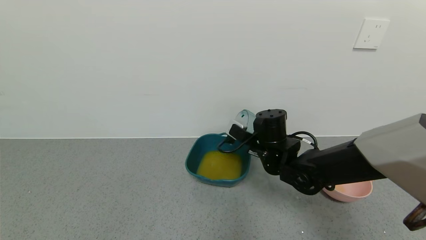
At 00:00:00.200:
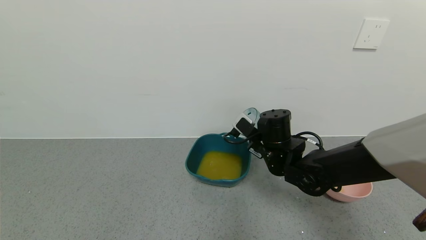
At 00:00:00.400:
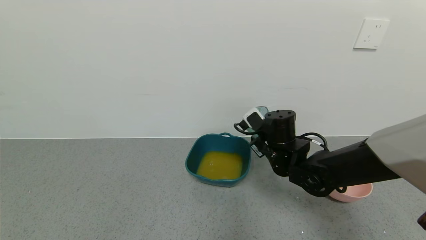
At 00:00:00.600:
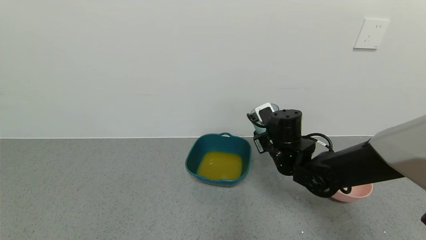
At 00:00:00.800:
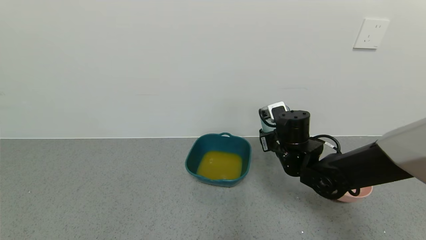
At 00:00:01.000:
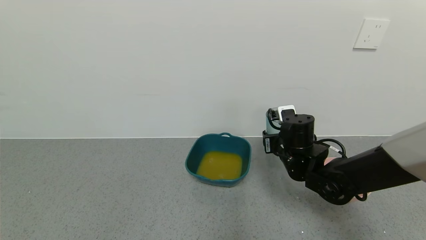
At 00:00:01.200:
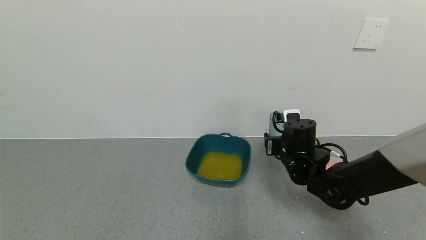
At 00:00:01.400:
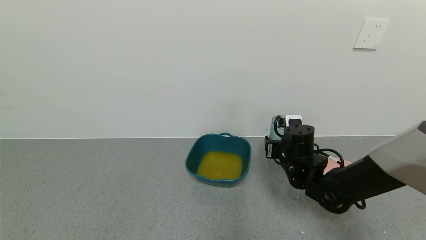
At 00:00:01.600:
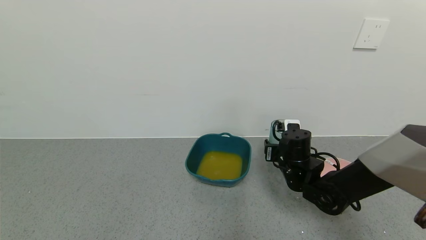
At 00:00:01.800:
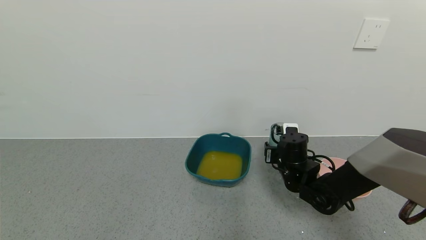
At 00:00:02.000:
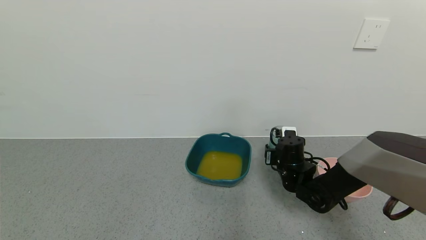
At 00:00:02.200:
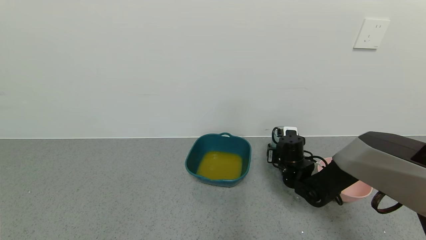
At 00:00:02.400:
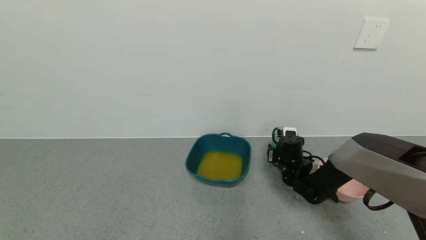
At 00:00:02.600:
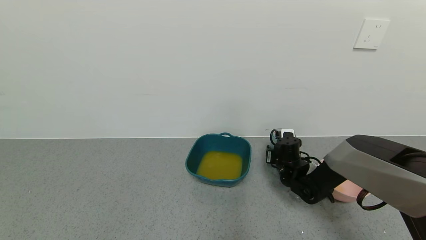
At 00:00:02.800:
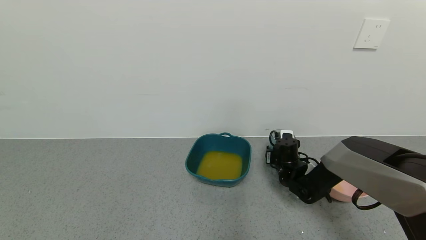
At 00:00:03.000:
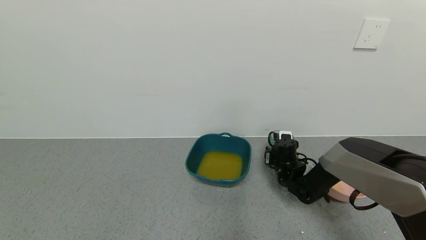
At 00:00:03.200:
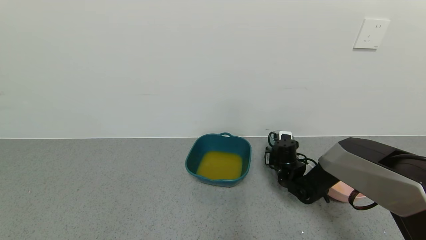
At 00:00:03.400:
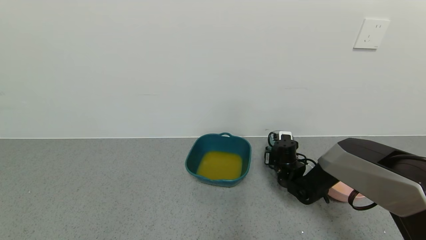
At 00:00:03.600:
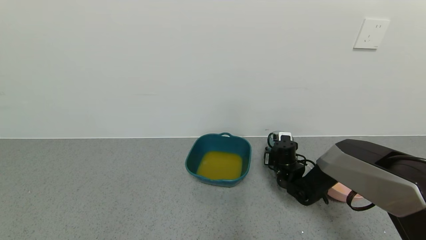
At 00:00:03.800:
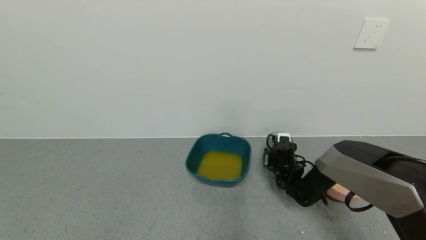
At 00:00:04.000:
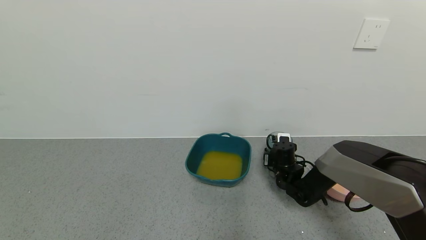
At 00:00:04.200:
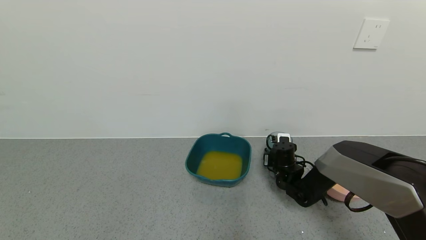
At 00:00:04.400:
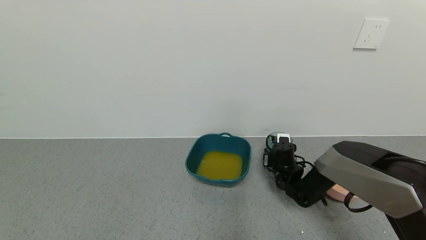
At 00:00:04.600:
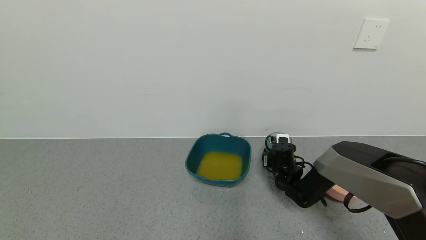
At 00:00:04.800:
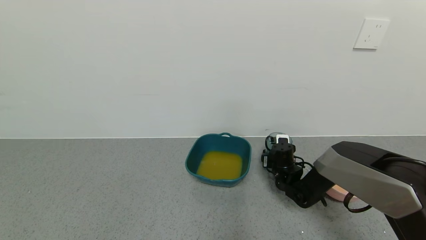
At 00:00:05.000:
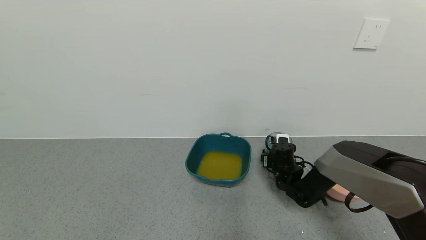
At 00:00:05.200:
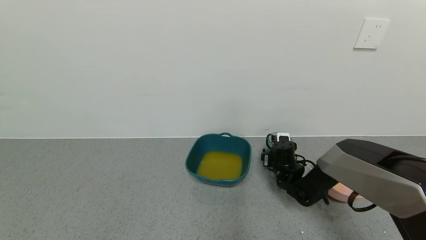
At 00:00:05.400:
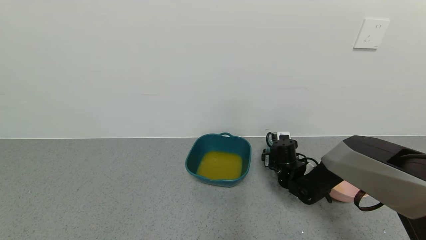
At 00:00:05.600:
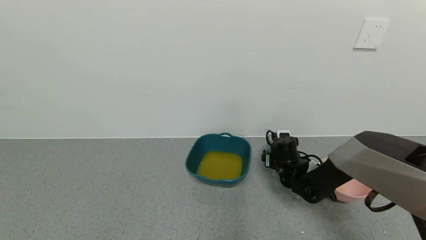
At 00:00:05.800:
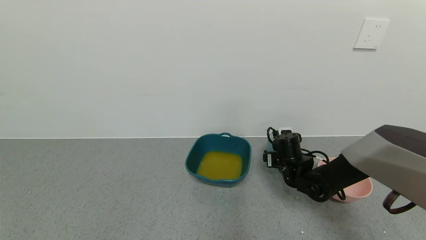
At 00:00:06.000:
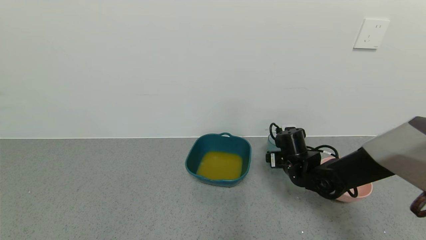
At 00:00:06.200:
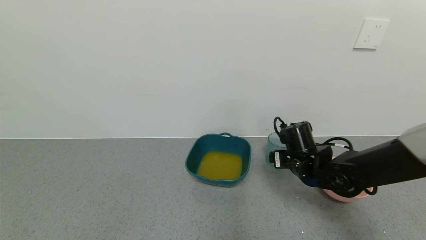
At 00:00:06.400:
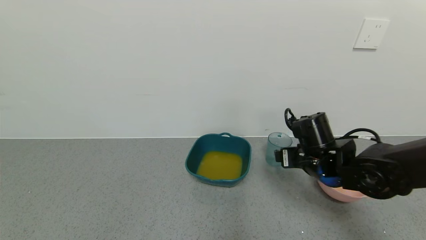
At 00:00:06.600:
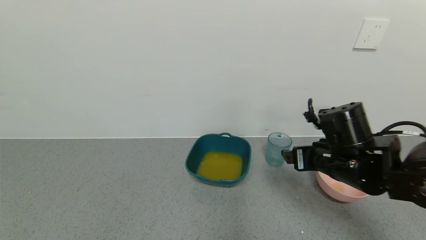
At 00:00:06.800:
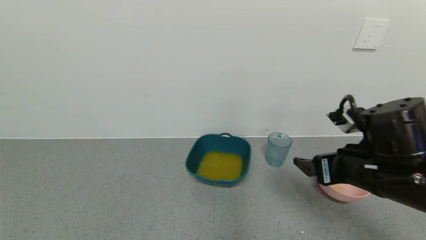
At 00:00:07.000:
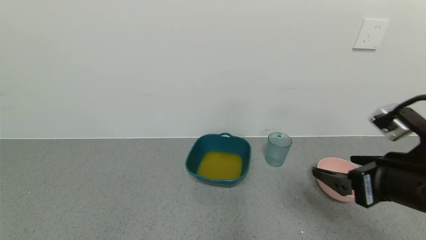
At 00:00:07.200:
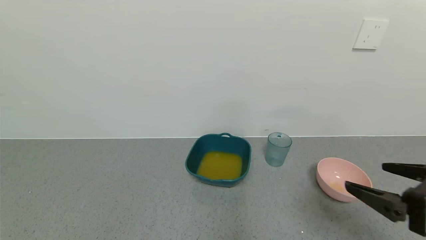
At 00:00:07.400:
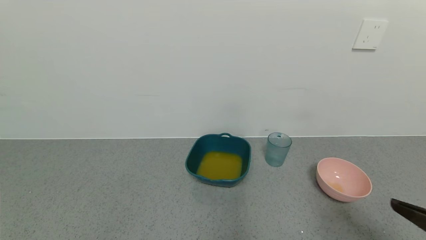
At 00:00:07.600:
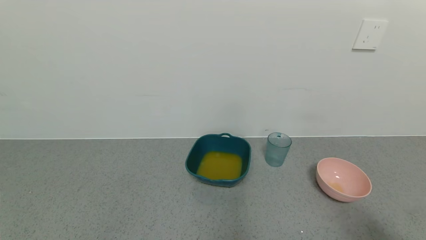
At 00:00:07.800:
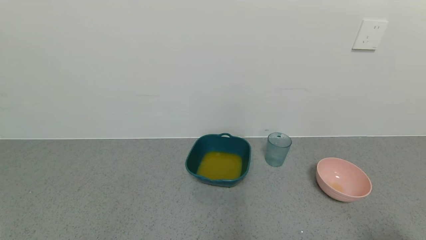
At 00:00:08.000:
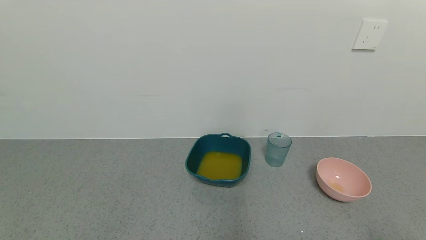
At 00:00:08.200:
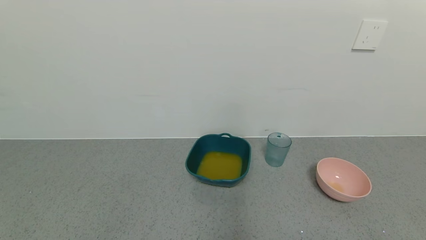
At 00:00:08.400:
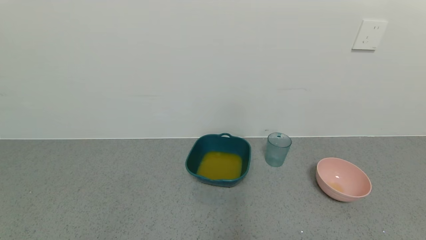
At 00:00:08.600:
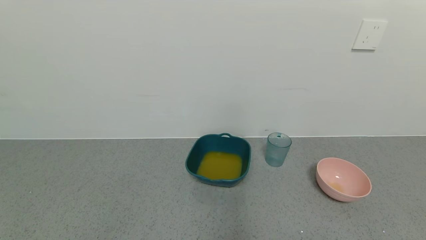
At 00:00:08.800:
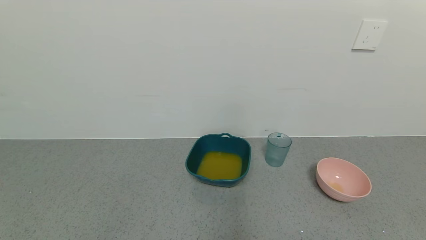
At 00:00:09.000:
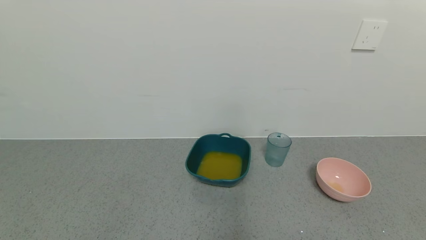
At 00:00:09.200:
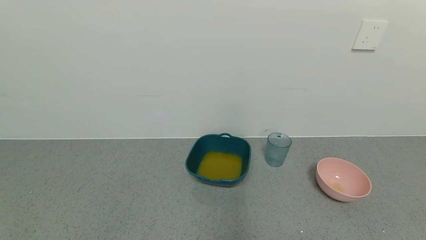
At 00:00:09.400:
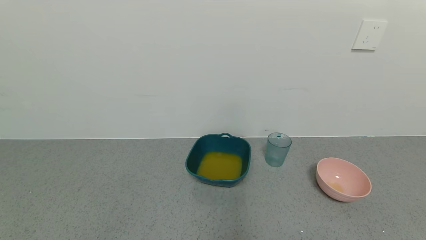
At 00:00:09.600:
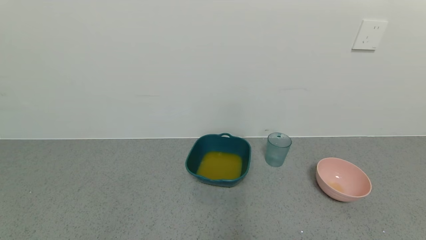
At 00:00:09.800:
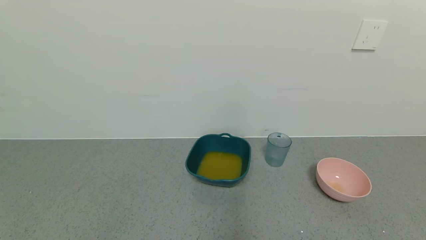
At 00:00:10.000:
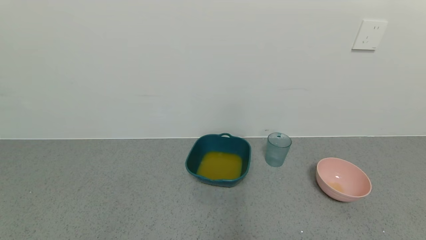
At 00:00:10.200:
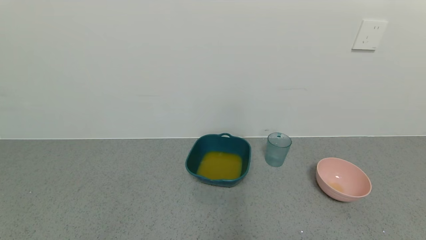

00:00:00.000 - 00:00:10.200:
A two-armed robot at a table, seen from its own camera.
Task of the whole recording: use a gripper to pick up the cup and pour the liquid into a bowl or tray.
Step, 00:00:00.000 - 00:00:06.600: Place the glass cup with the right gripper.
00:00:00.000 - 00:00:01.400: The right gripper is displaced to the right by roughly 5 cm.
00:00:01.400 - 00:00:03.000: The right gripper moves downward and forward, about 10 cm.
00:00:03.000 - 00:00:04.400: Neither gripper changes place.
00:00:04.400 - 00:00:05.800: The right gripper heads upward, covering roughly 5 cm, and opens.
00:00:05.800 - 00:00:07.200: The right gripper goes roughly 35 cm backward, upward and to the right.
00:00:07.200 - 00:00:08.800: The right gripper travels backward and to the right by some 20 cm.
